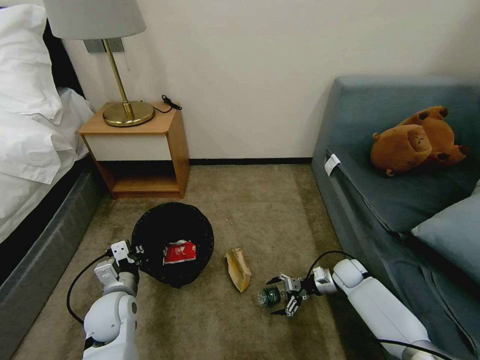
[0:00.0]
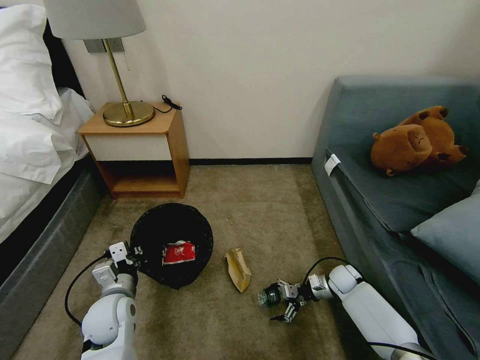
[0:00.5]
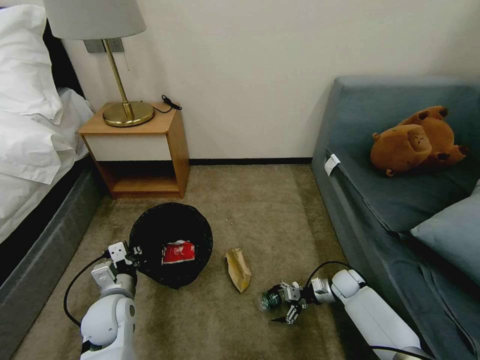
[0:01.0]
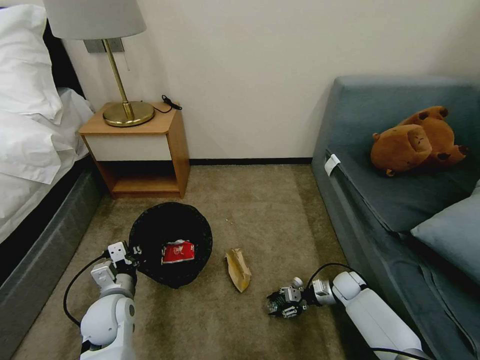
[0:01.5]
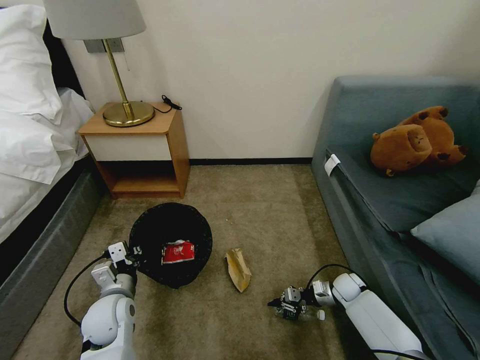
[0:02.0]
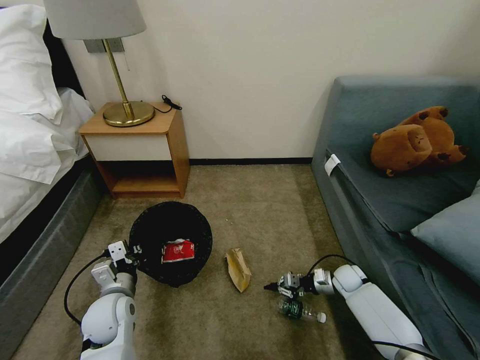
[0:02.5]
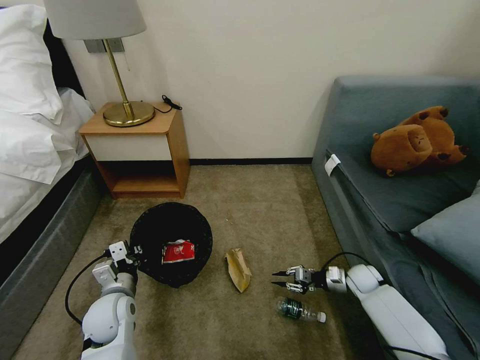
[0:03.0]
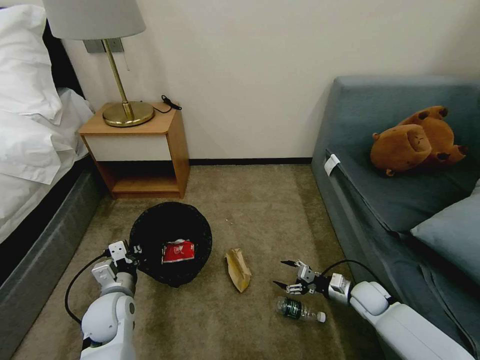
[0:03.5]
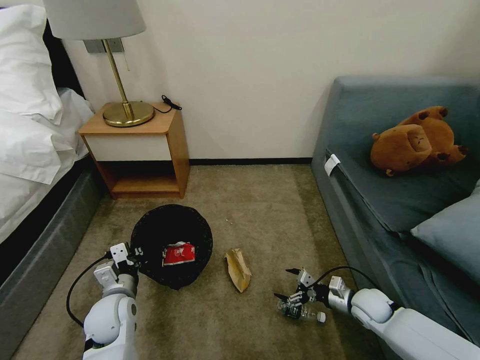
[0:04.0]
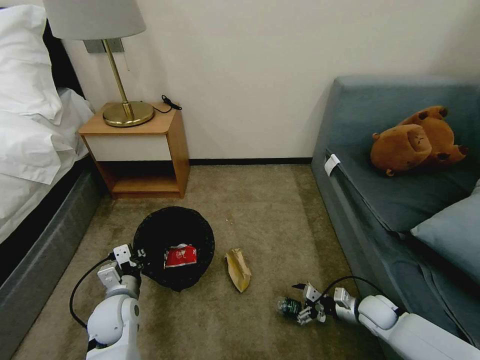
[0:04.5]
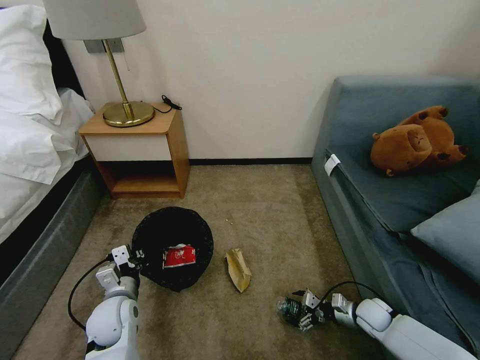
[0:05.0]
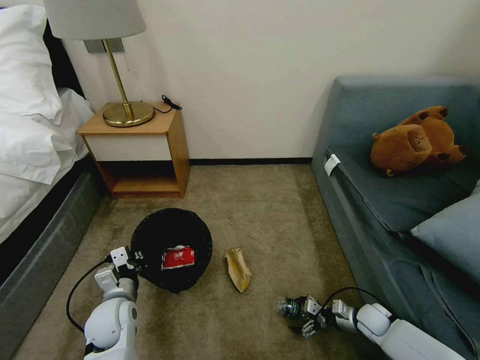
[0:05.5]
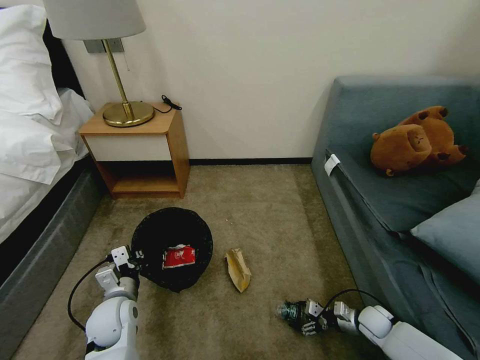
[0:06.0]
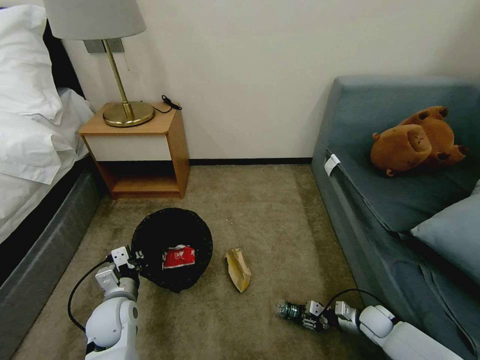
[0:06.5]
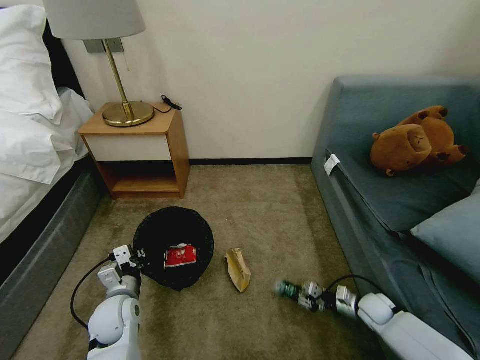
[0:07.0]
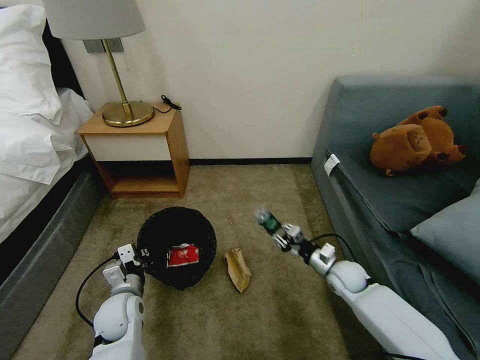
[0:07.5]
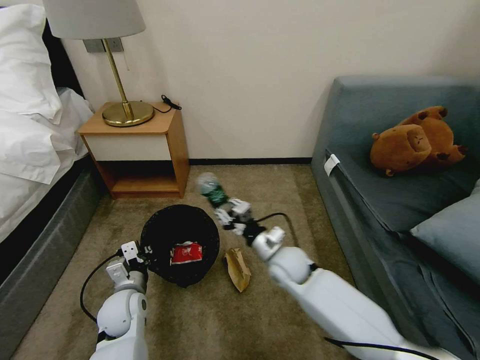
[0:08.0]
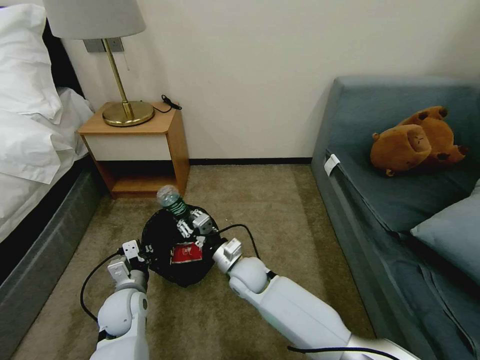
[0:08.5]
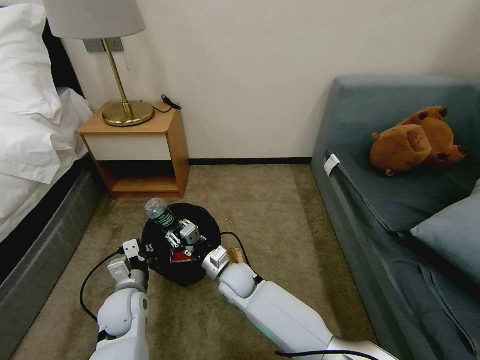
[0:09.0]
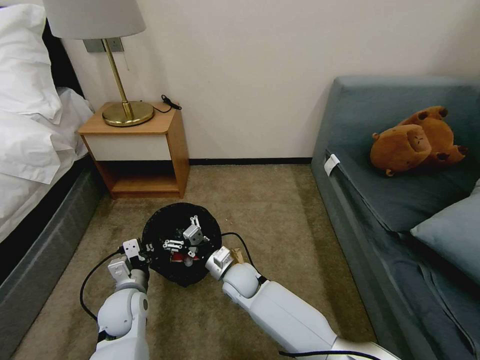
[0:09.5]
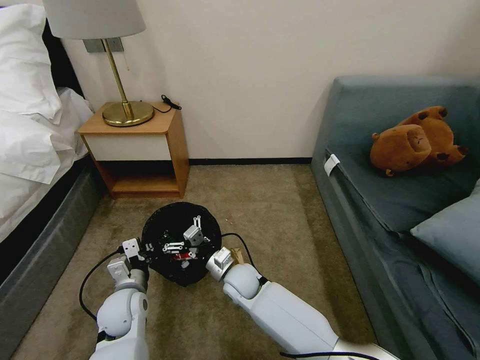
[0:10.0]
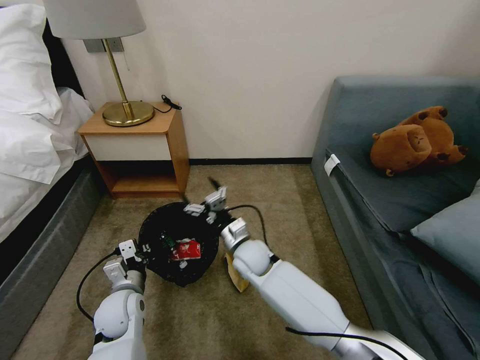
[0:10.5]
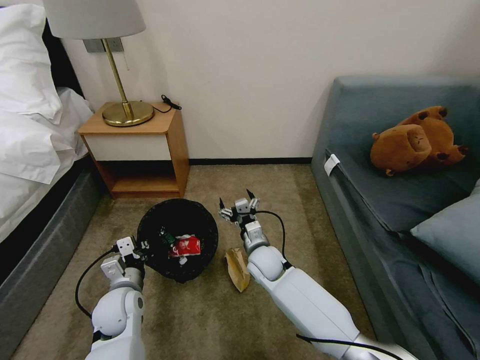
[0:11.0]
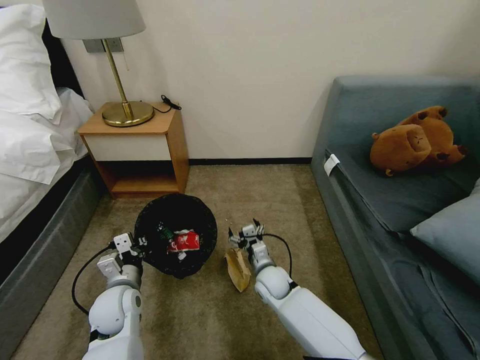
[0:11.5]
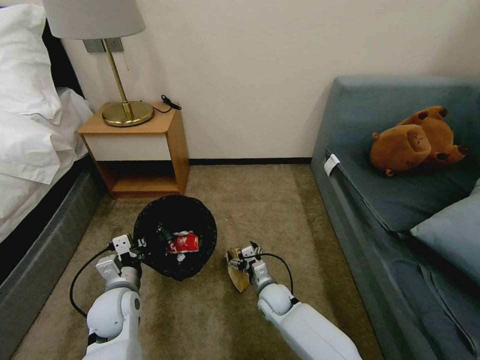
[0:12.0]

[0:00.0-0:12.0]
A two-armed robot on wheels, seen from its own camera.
Task of the whole recording: Pick up the trash bin, then pick up the garbage on the floor and place it into the trash bin.
0:00.0 to 0:02.0: The right gripper closes up.
0:02.0 to 0:04.0: The right gripper shifts about 10 cm backward and upward, and opens up.
0:04.0 to 0:06.0: The right gripper travels downward by about 10 cm.
0:06.0 to 0:08.0: The right gripper goes approximately 30 cm to the left and upward, and closes up.
0:08.0 to 0:10.0: The right gripper moves to the left and downward, about 15 cm, and opens.
0:10.0 to 0:12.0: The right gripper shifts some 15 cm to the right and downward.

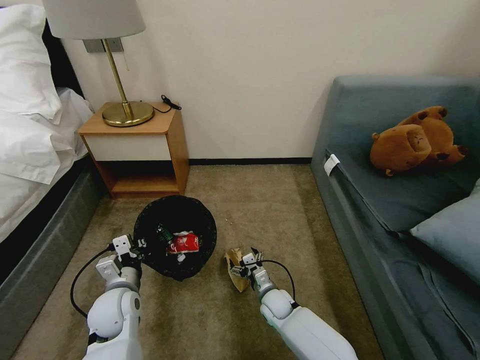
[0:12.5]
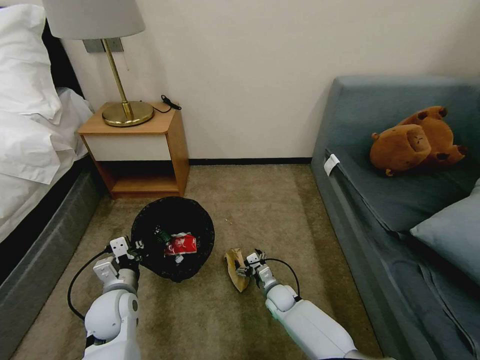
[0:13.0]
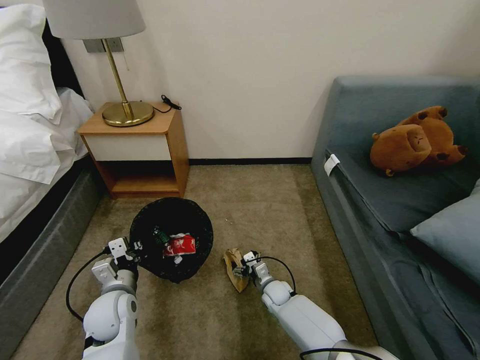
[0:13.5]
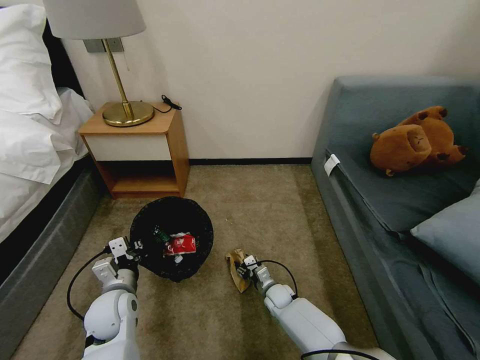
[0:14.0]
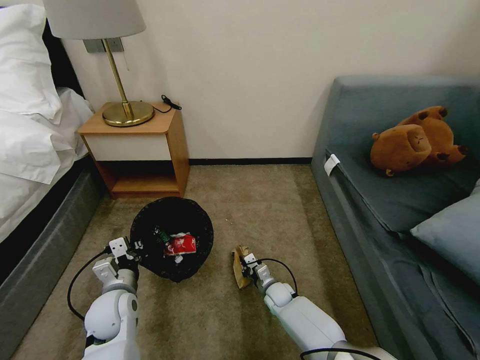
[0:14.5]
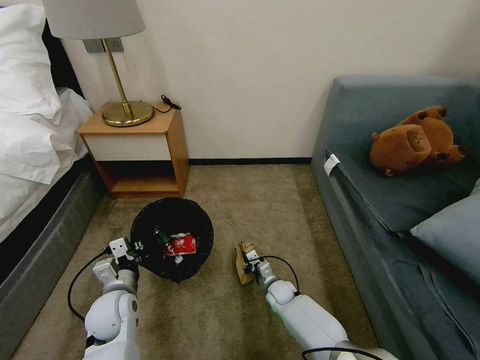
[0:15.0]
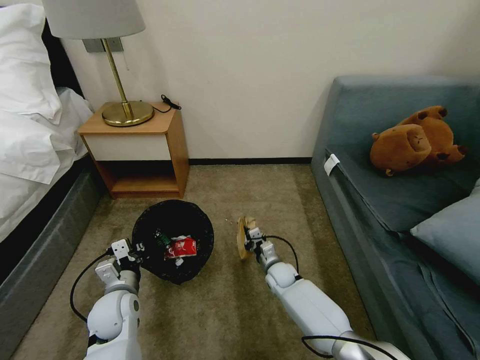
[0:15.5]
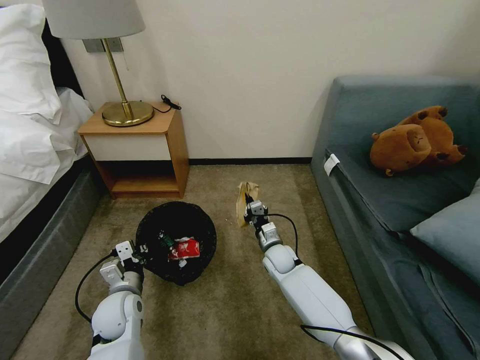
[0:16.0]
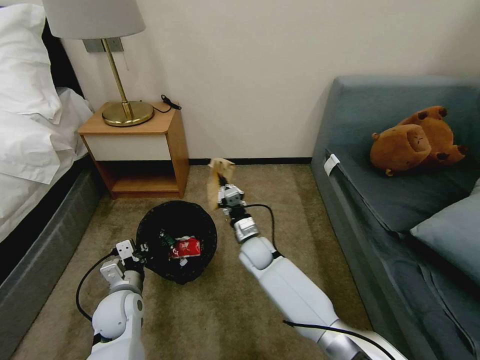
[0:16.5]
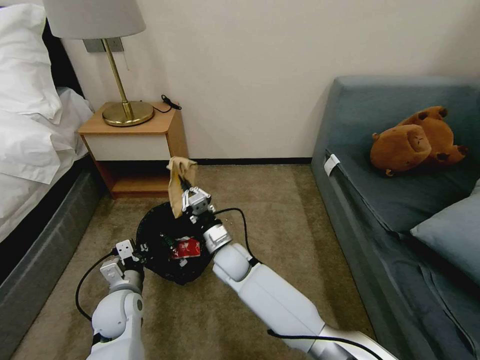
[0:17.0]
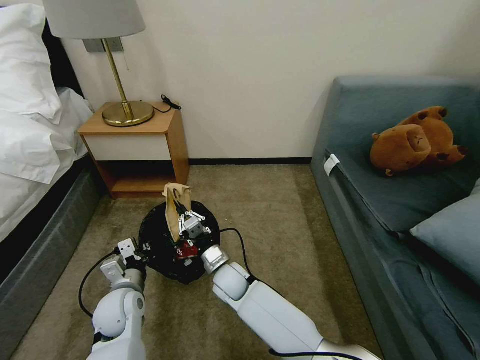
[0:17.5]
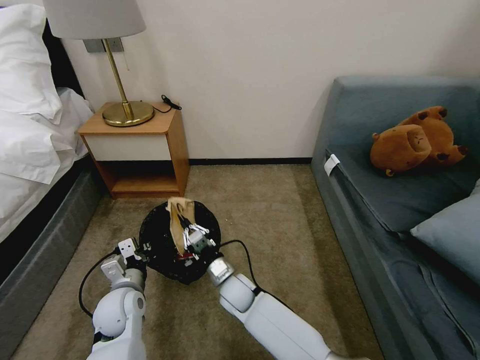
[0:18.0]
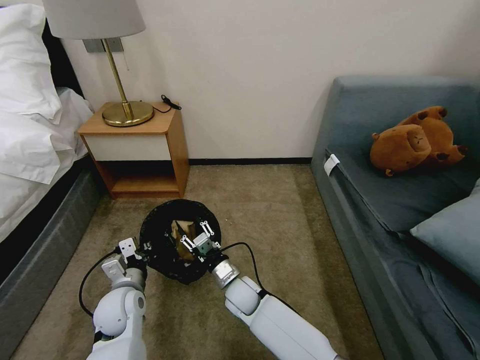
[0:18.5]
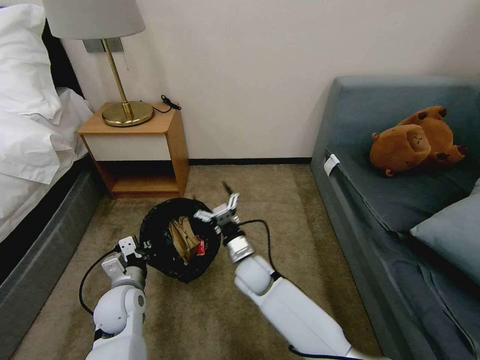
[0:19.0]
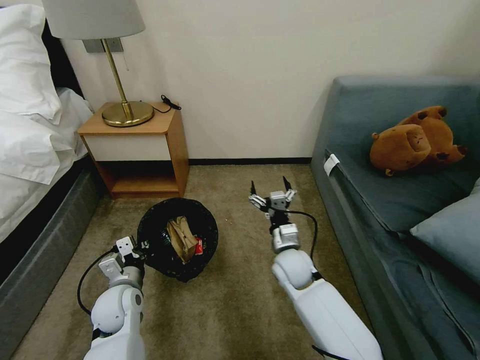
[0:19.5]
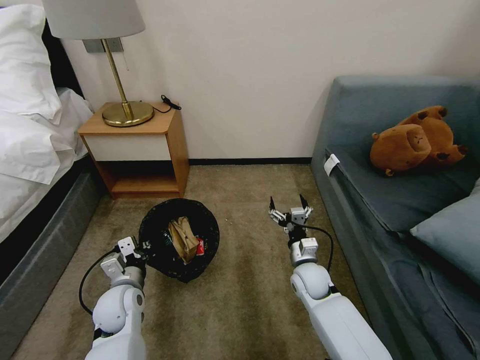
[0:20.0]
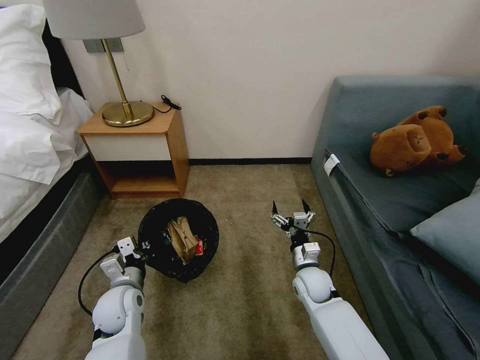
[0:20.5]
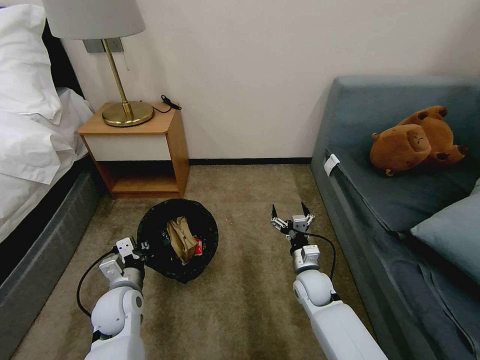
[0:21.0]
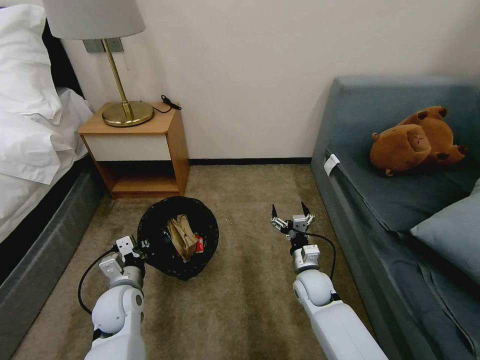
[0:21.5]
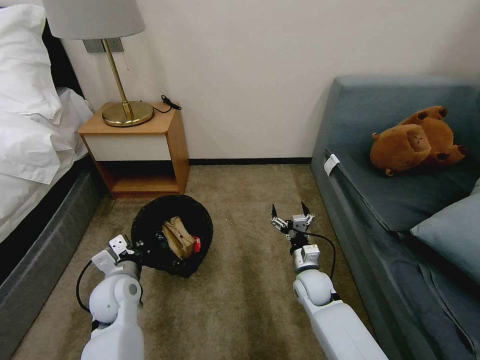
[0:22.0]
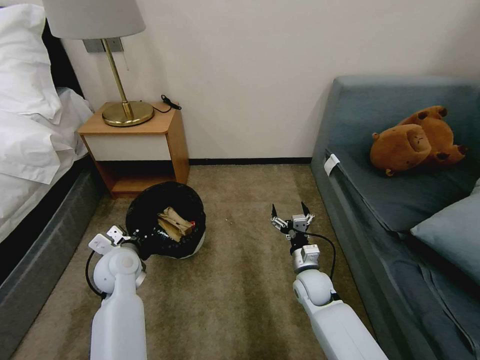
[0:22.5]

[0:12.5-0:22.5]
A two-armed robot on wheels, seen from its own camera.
Task of the whole recording: Pick up the trash bin, then pick up the garbage on the floor and place it into the trash bin.
0:12.5 to 0:14.5: The right gripper shifts by approximately 5 cm, and closes its fingers.
0:14.5 to 0:16.5: The right gripper travels upward and to the left by approximately 20 cm.
0:16.5 to 0:18.5: The right gripper heads backward and to the left, covering about 10 cm, and opens up.
0:18.5 to 0:20.5: The right gripper travels to the right by roughly 20 cm, and opens.
0:20.5 to 0:22.5: The left gripper is displaced forward and upward by approximately 10 cm.

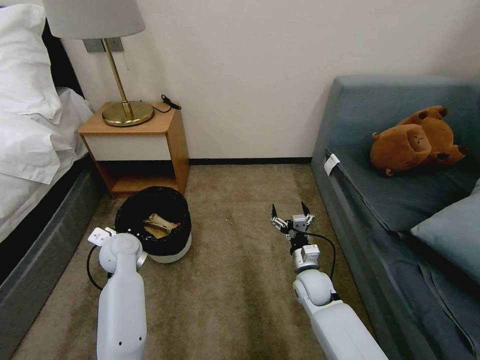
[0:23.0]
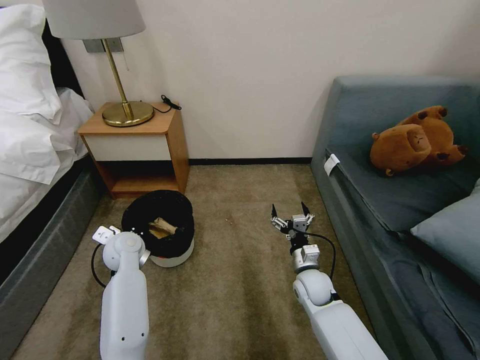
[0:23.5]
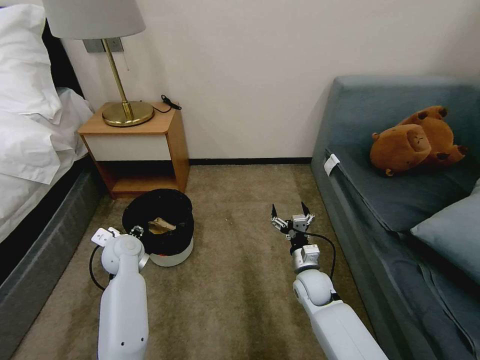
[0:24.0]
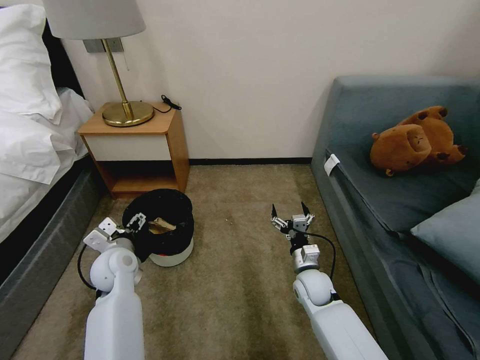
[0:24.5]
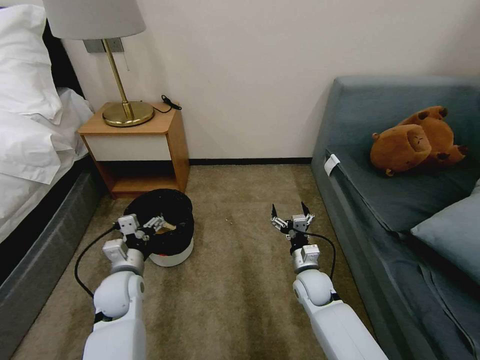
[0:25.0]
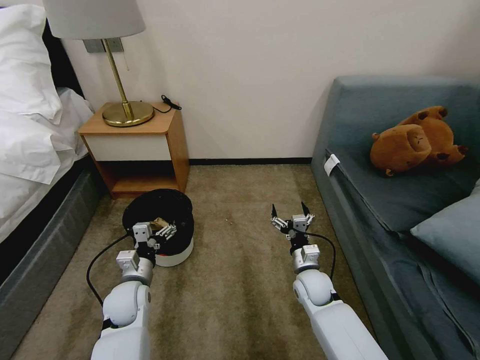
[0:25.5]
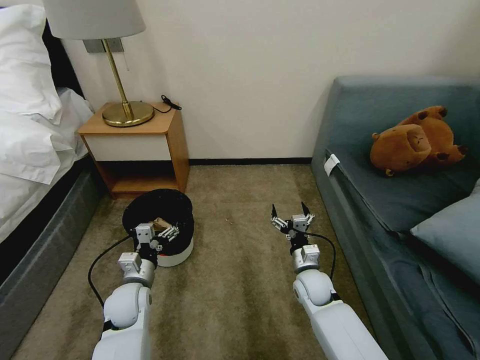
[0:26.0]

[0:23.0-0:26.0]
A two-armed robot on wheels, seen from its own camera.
Task of the whole recording: Pick up the trash bin, then pick up the garbage on the floor and place it into the trash bin.
0:23.0 to 0:24.5: The left gripper opens its fingers.
0:24.5 to 0:26.0: The left gripper travels downward and backward by roughly 10 cm.
